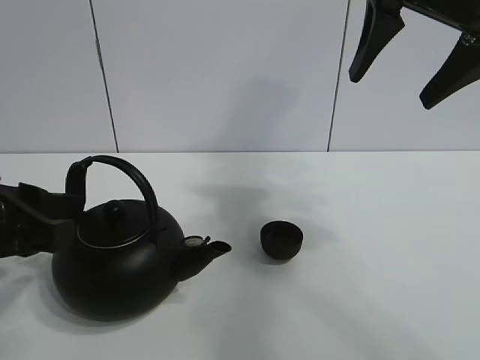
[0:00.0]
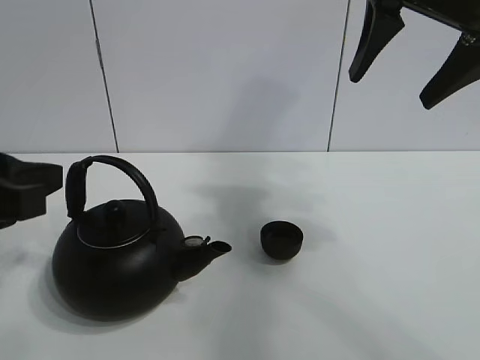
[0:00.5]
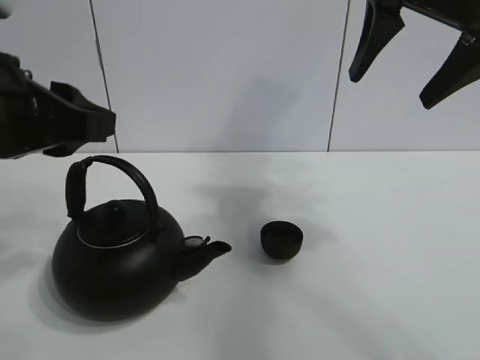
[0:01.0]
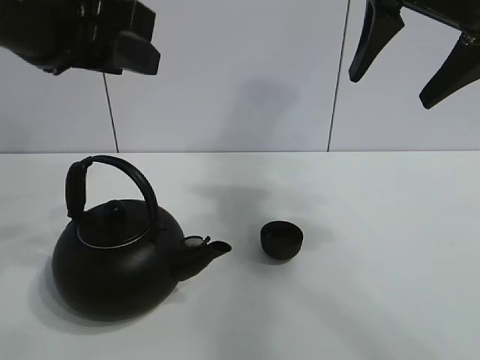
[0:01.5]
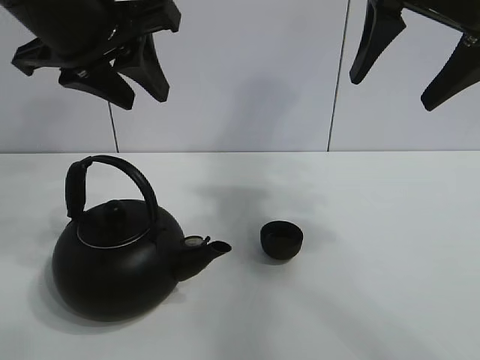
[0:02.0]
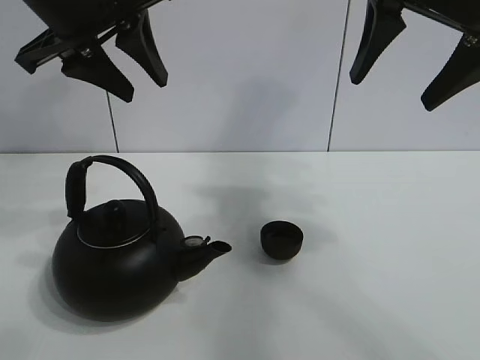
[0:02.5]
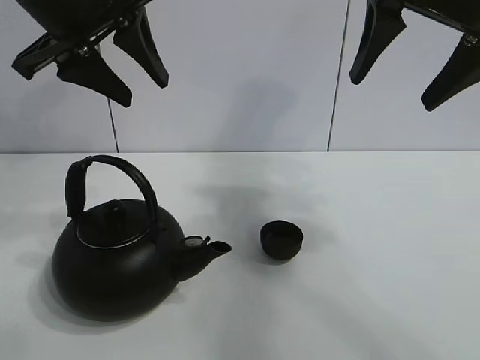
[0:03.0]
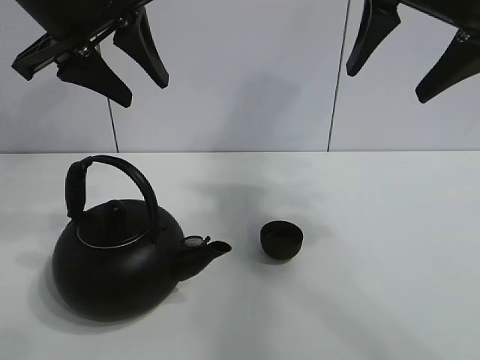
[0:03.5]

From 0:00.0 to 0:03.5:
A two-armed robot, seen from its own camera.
Task of the whole recording: pour tea into the teacup.
From 0:00.0 to 0:02.0: The left gripper heads upward, forward and to the right, covering about 20 cm.
From 0:02.0 to 0:03.5: The grippers stay close to where they were, moving slightly.

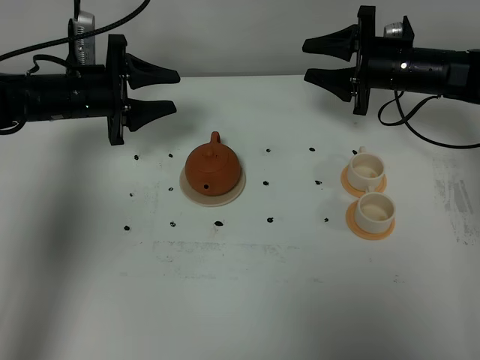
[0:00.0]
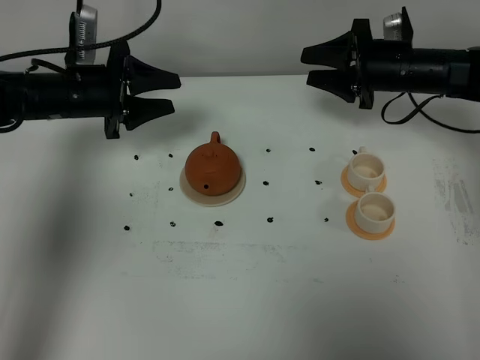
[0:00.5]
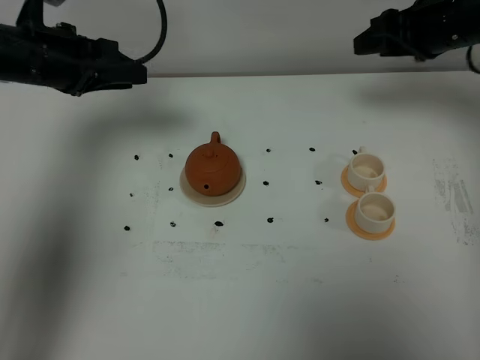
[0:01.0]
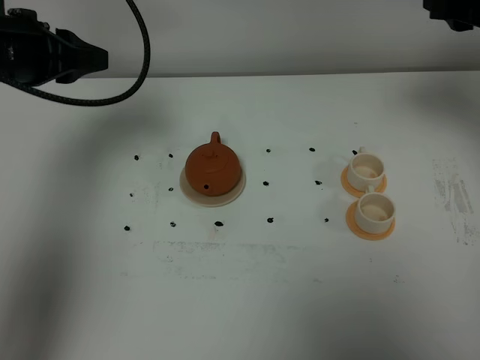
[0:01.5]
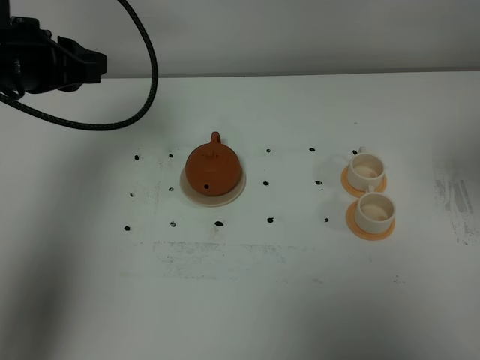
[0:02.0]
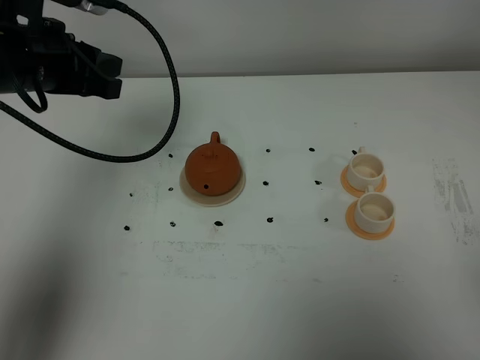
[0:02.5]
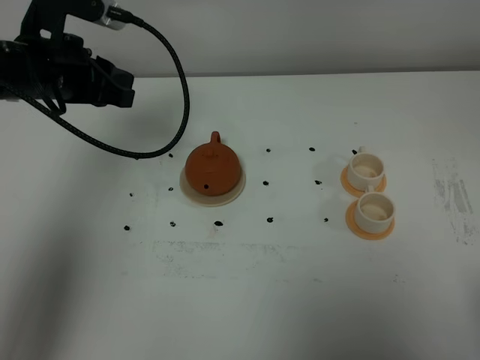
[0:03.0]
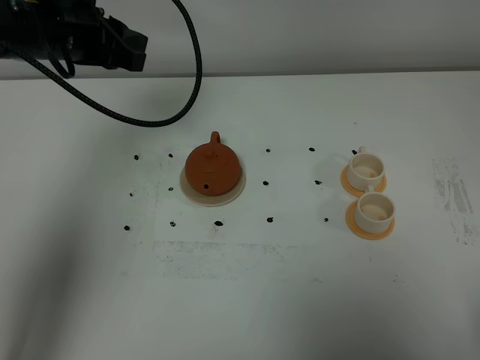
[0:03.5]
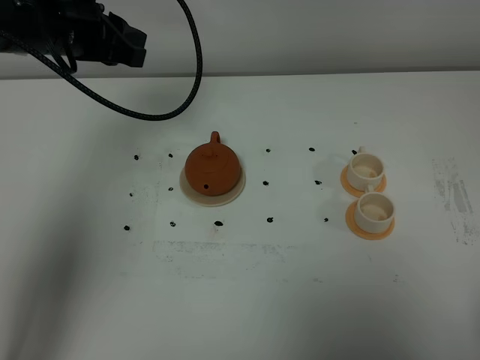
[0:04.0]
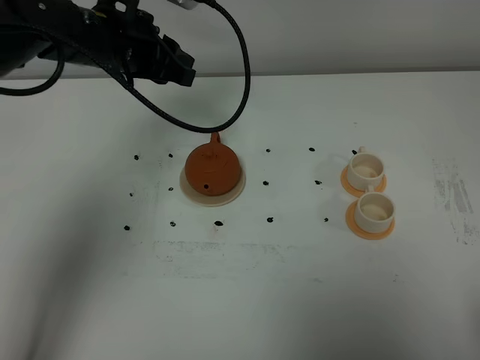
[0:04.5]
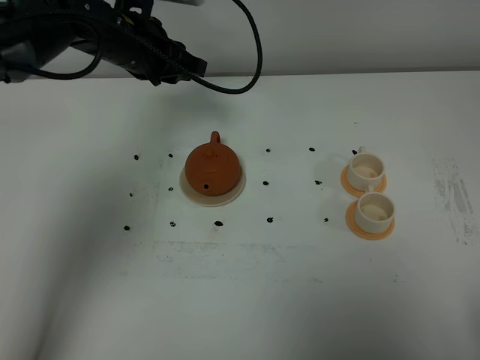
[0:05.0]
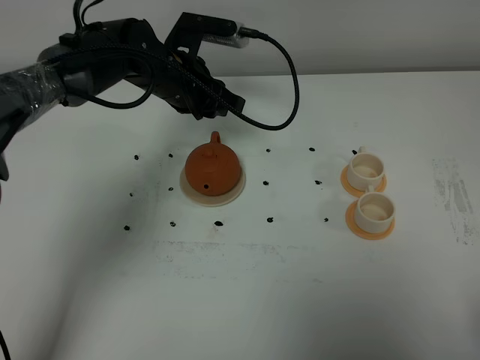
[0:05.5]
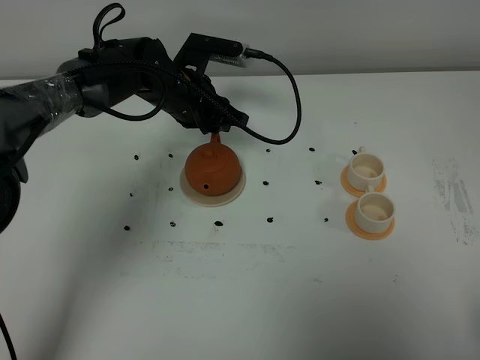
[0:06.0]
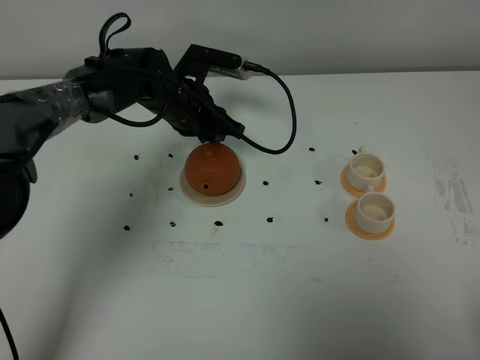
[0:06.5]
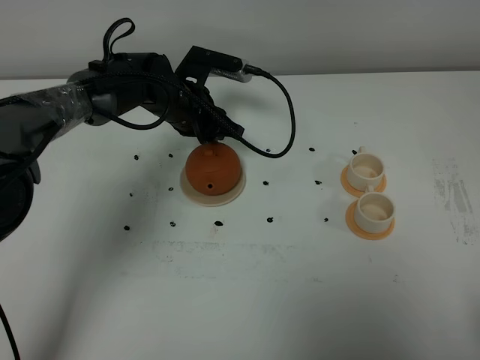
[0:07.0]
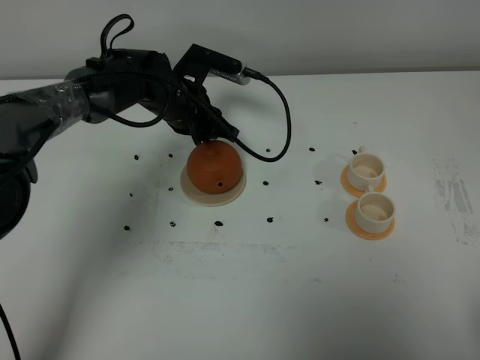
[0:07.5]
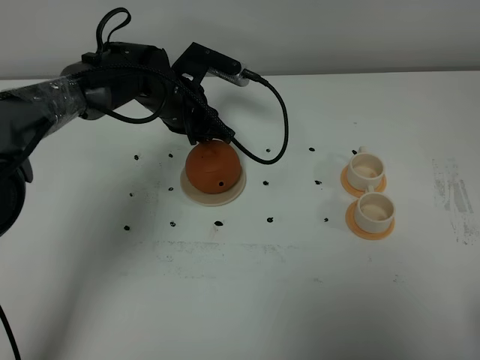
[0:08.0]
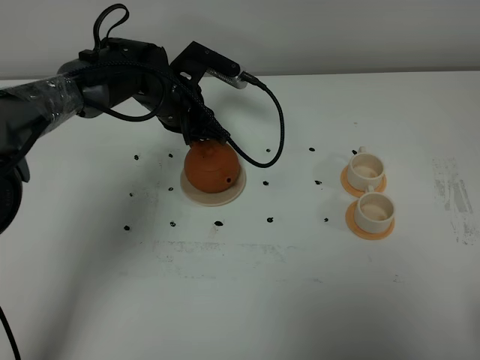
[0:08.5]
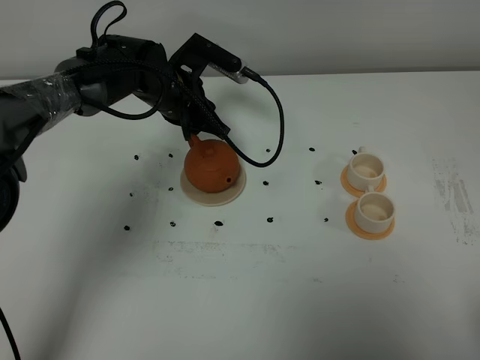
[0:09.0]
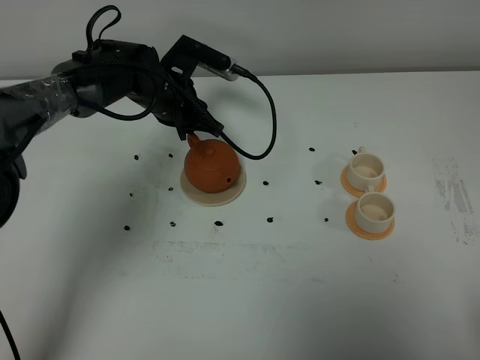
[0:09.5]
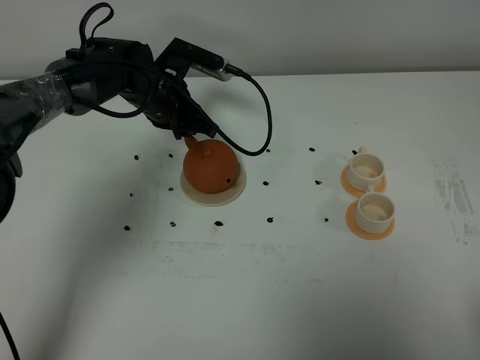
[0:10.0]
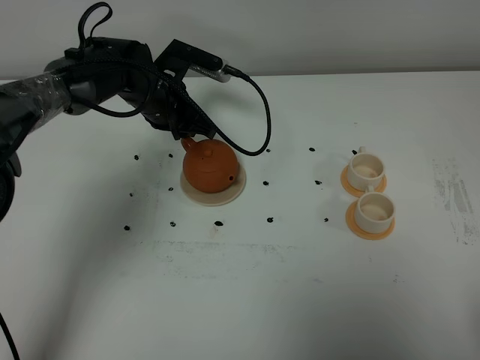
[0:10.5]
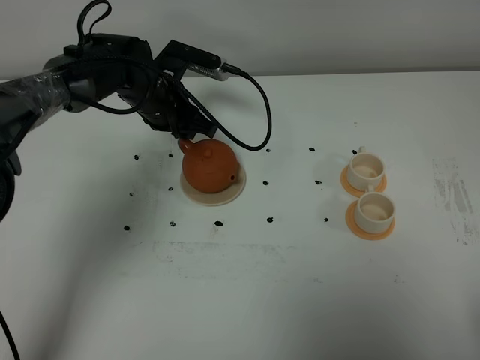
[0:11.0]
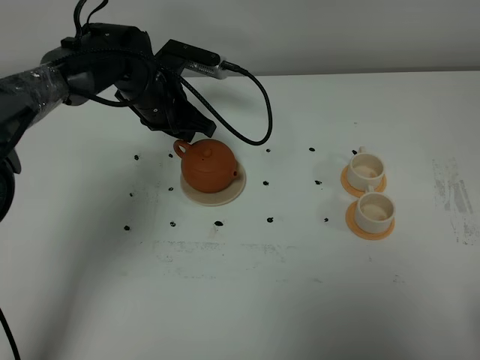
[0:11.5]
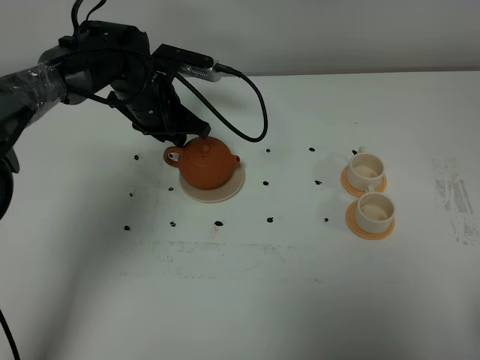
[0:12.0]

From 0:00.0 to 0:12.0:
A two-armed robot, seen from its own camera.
Task of the whole recording: grasp the brown teapot and pour the tea into the two white teacups one by one, put the brown teapot back in its original place.
From 0:00.0 to 0:02.0: The right gripper shifts some 35 cm backward and upward, while the left gripper goes roughly 15 cm upward and backward.
From 0:02.0 to 0:04.0: The right gripper moves backward and downward, about 20 cm, while the left gripper shifts some 5 cm forward.
From 0:04.0 to 0:06.0: The left gripper moves downward and to the right, roughly 20 cm.
From 0:06.0 to 0:12.0: The grippers make only small movements.

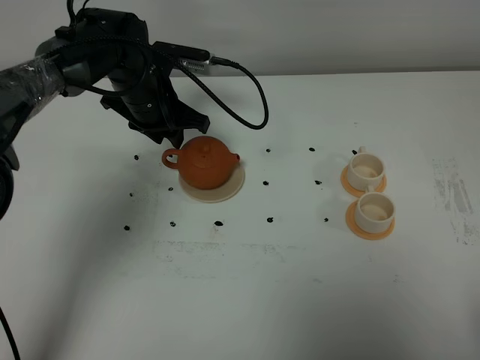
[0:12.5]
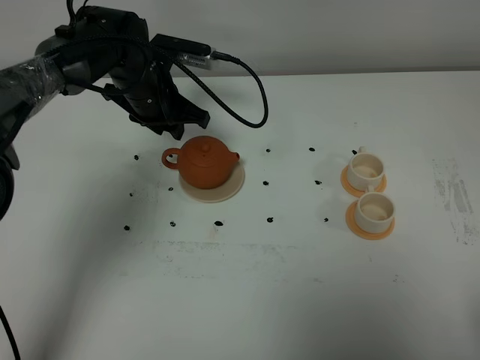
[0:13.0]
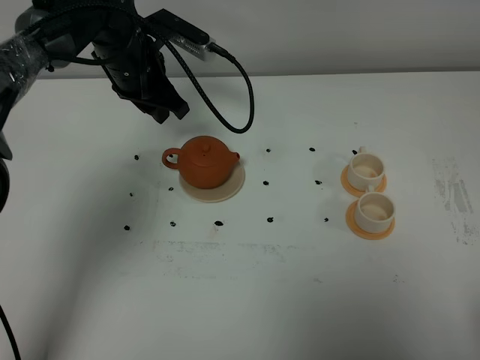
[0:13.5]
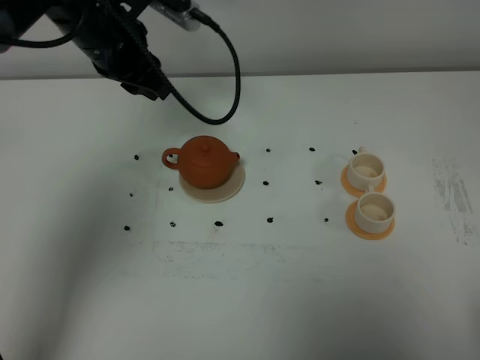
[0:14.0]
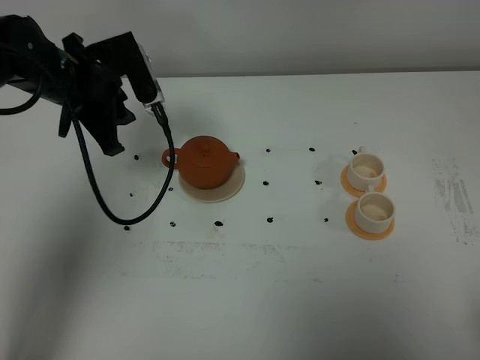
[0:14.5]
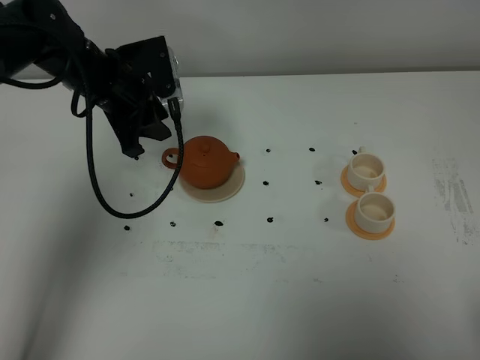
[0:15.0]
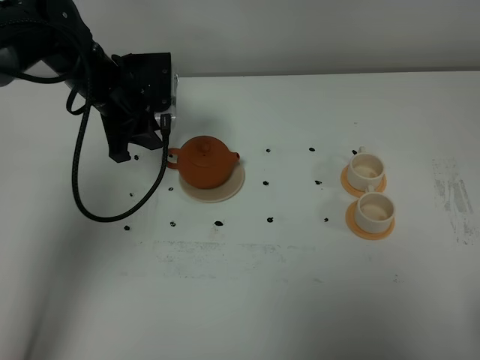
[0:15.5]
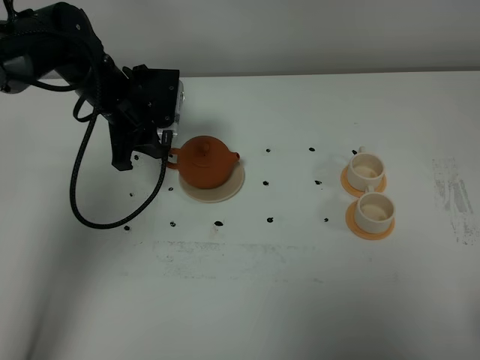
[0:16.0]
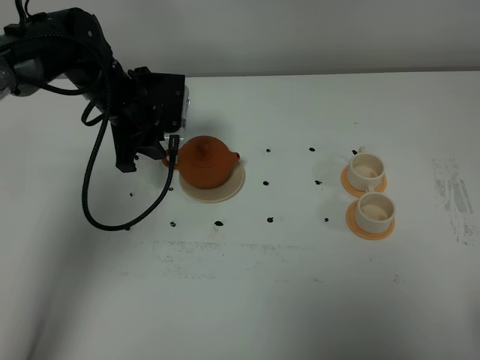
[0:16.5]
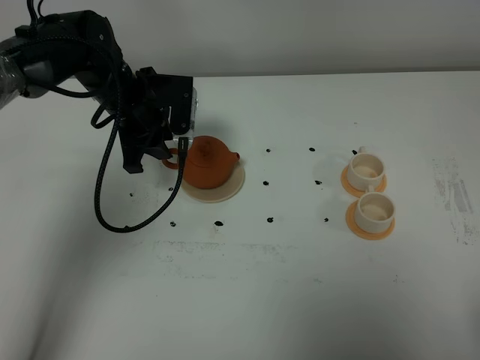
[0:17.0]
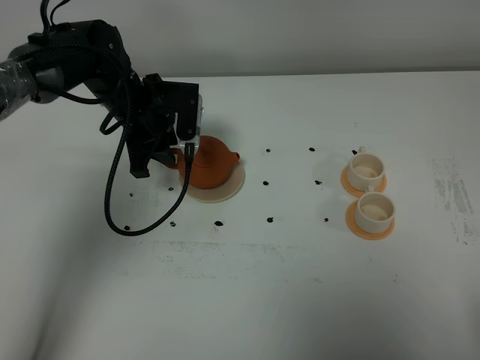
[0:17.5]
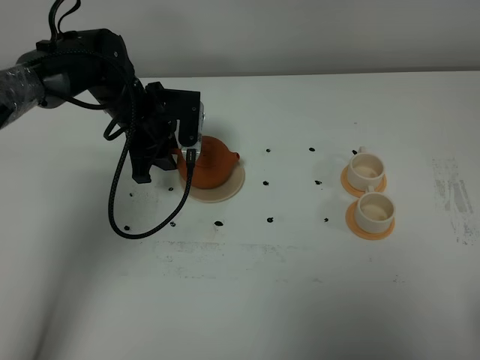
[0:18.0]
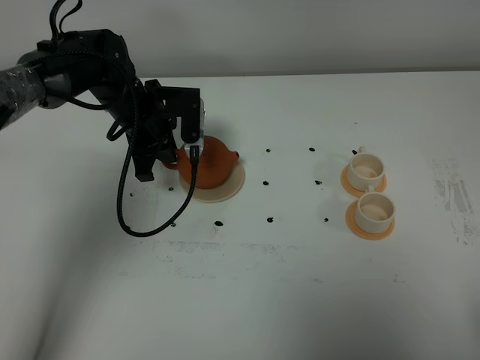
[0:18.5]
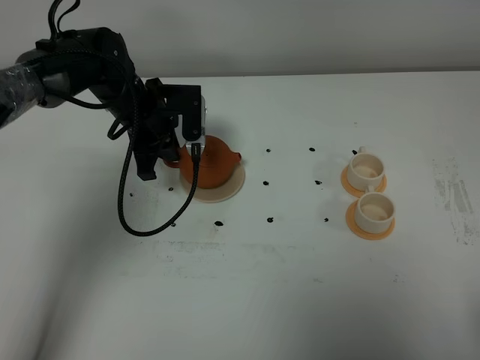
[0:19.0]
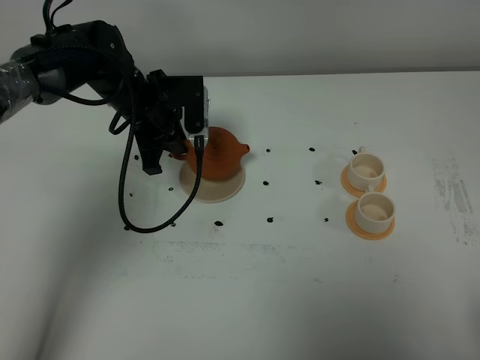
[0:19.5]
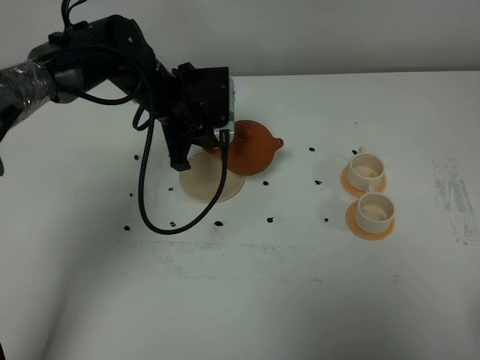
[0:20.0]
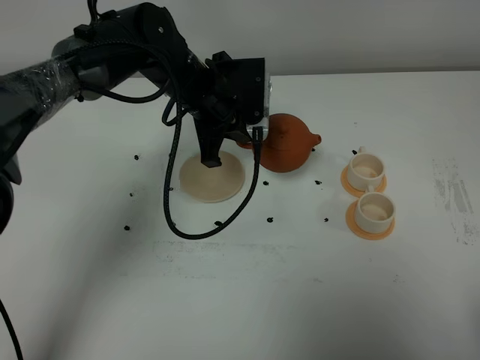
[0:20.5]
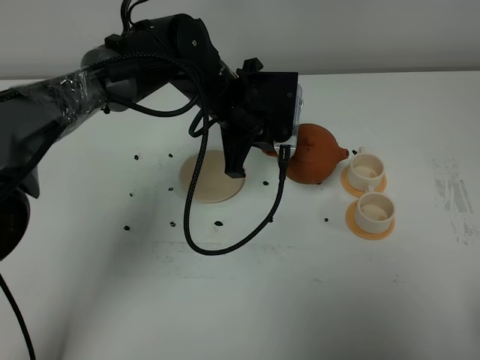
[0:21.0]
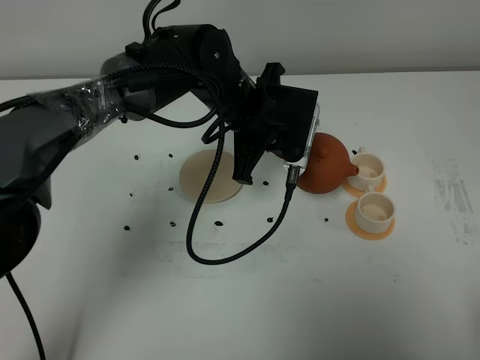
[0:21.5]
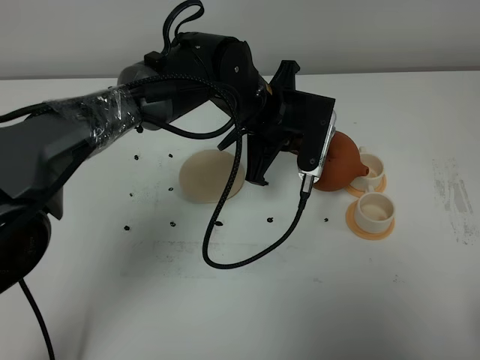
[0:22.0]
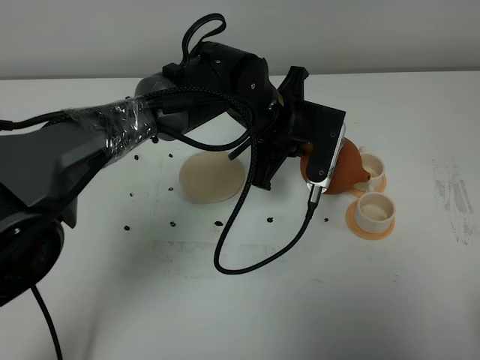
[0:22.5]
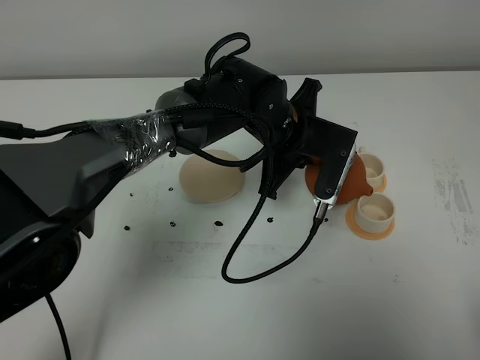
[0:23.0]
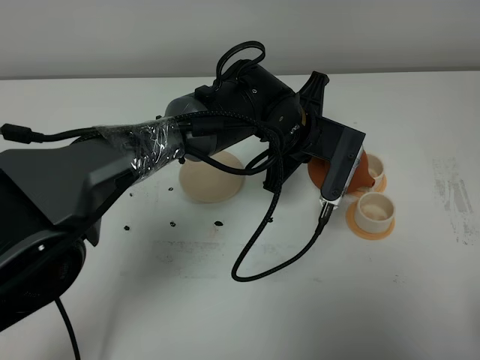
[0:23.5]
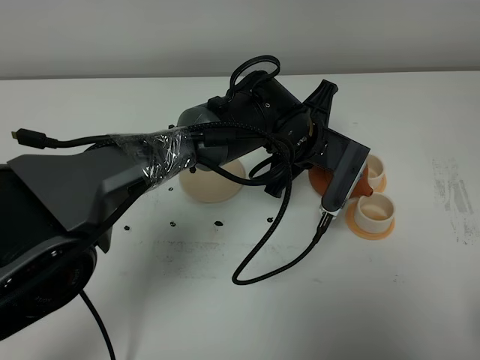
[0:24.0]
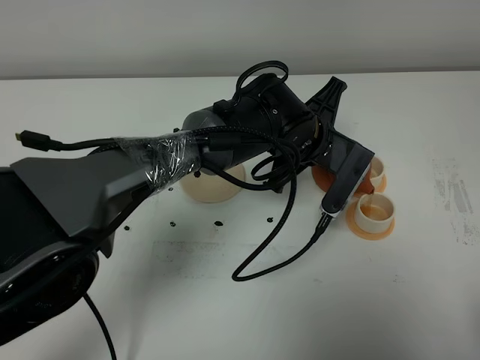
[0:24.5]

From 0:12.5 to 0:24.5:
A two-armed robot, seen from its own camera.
Task of the whole recording: grasp the brown teapot and pour the tea into the two white teacups one by one, put the brown teapot back in its original place.
Step, from 0:12.5 to 0:19.0: Pick up the teapot with the left gripper.
From 0:12.5 to 0:14.5: The left gripper is displaced to the left, upward and backward by roughly 10 cm.
From 0:14.5 to 0:16.5: The left gripper moves about 5 cm.
From 0:16.5 to 0:18.5: The left gripper closes its fingers.
From 0:18.5 to 0:20.5: The left gripper heads to the right and upward, covering approximately 10 cm.
From 0:20.5 to 0:22.5: The left gripper moves to the right, approximately 10 cm.
